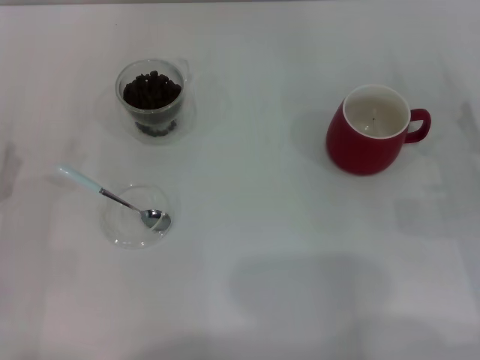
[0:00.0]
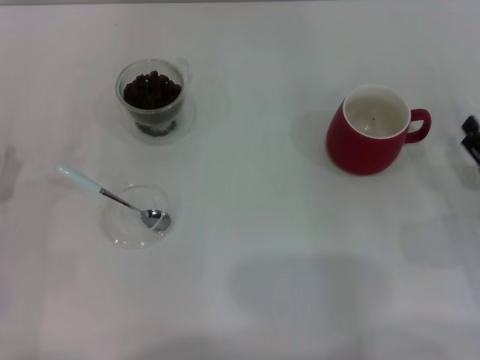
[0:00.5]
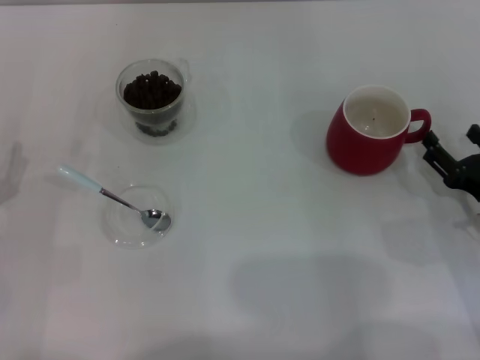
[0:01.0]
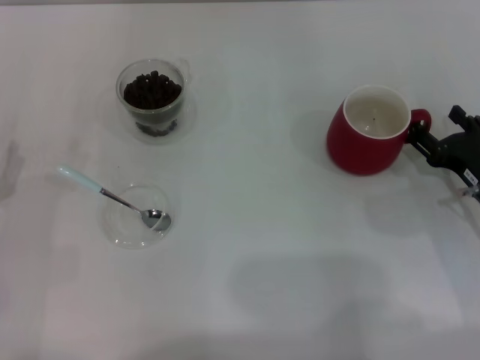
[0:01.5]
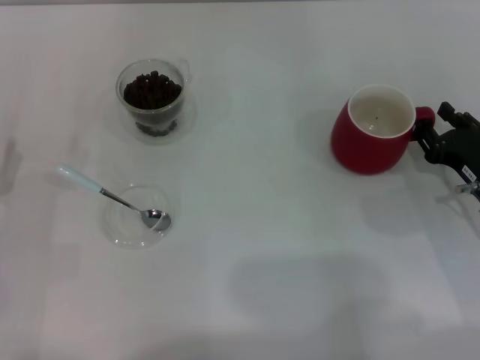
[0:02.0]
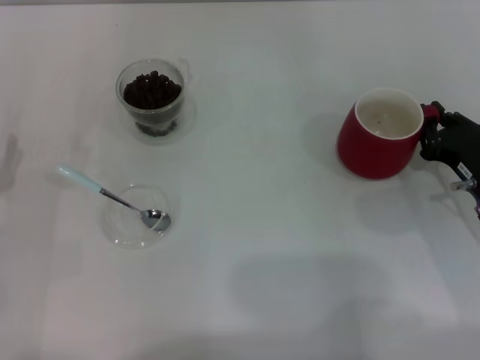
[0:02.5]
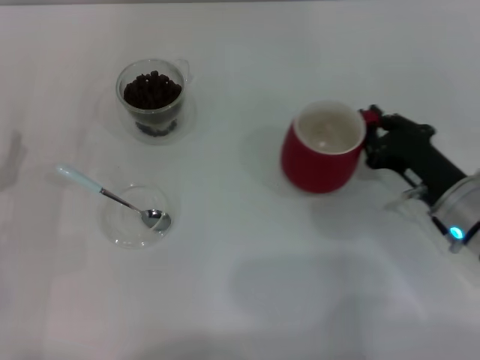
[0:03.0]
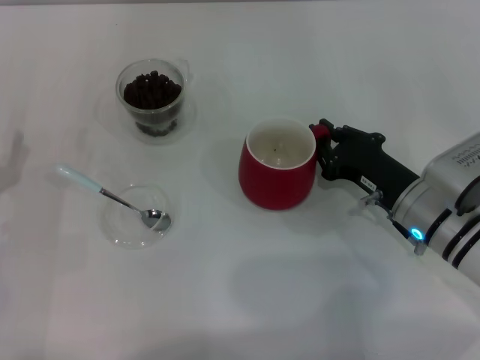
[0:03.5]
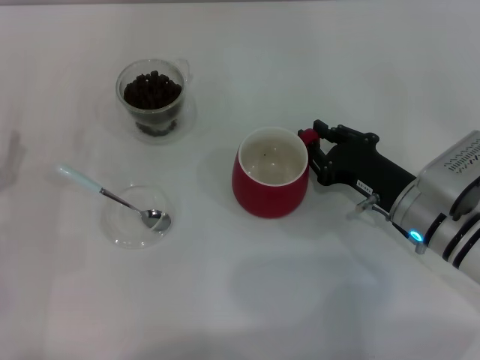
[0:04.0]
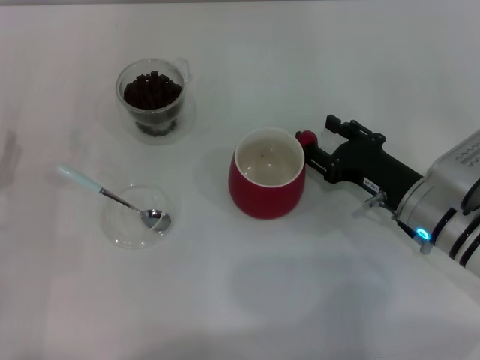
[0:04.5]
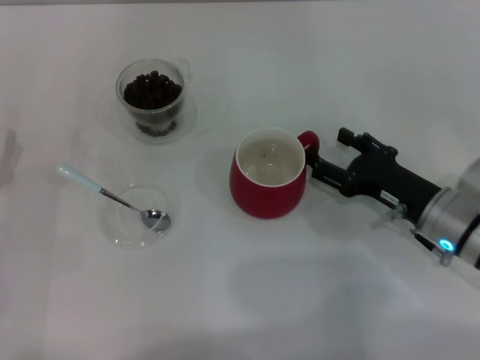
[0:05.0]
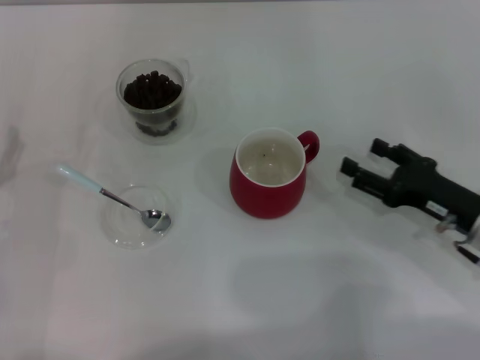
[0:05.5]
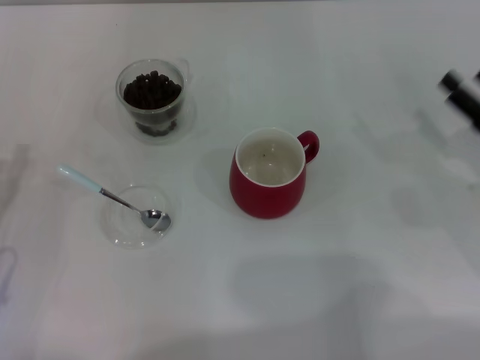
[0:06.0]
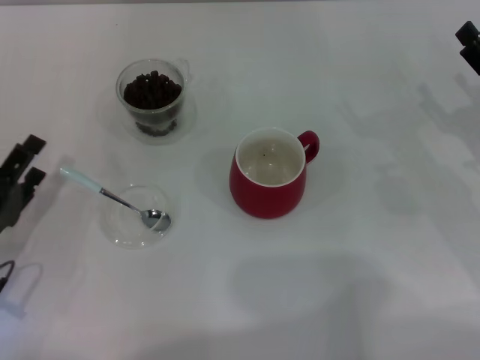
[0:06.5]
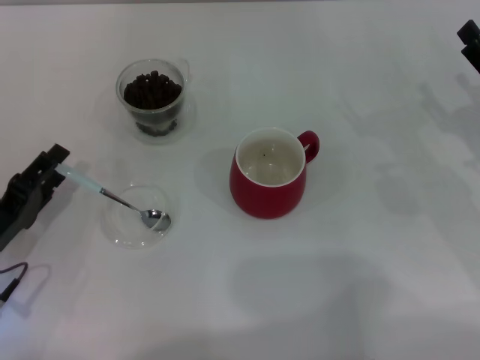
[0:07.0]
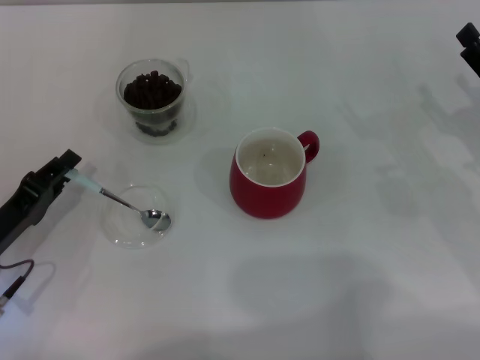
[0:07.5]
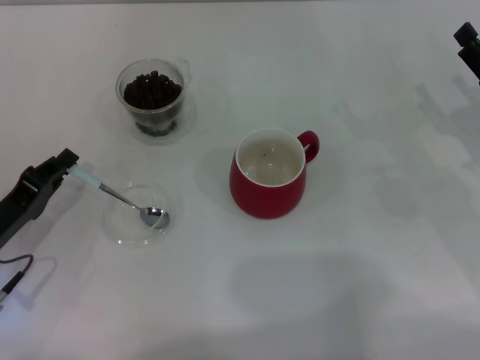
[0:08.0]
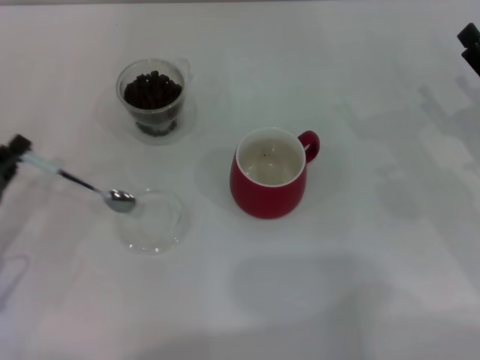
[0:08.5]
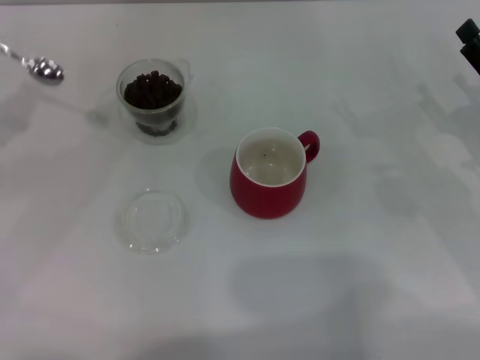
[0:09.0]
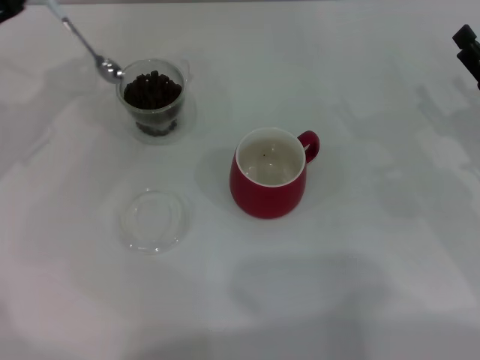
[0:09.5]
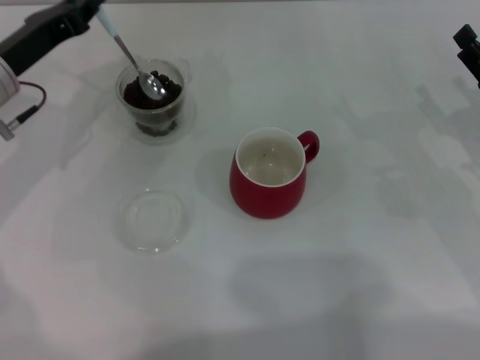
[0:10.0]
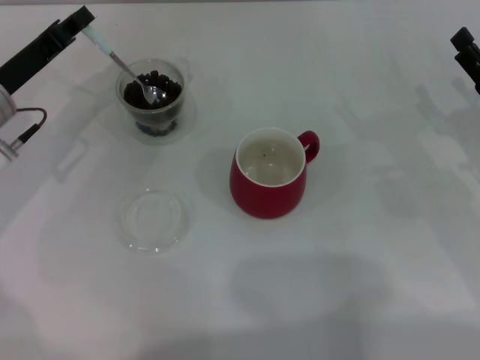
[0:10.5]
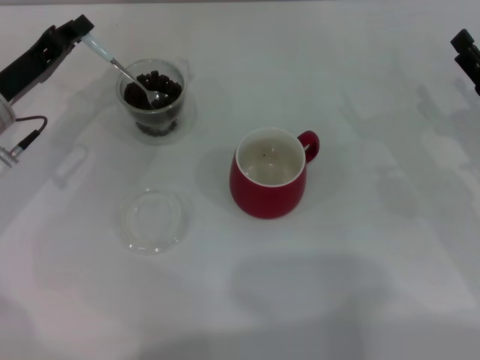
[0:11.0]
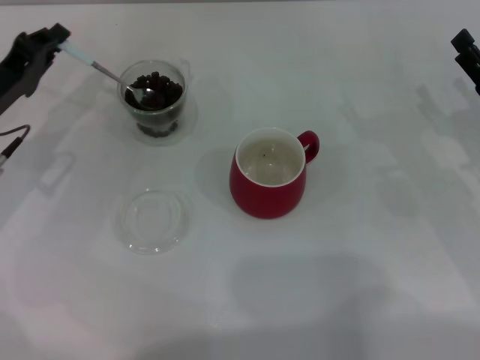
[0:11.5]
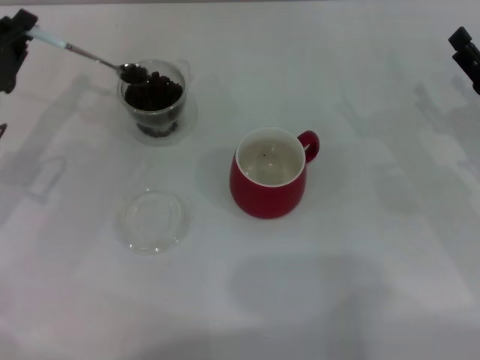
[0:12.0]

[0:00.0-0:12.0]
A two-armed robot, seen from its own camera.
Task of the whole recording: Use a blue spoon to take out the coffee beans from the glass and pour them into the red cup.
Step, 0:05.5 to 0:08.0: Pick up the spoon with the right gripper.
0:00.0 to 0:02.0: The grippers make only small movements.
0:02.0 to 0:04.0: The right gripper shifts some 10 cm to the left, and closes.
0:04.0 to 0:06.0: The right gripper goes roughly 15 cm to the right, and opens its fingers.
0:06.0 to 0:08.0: The left gripper closes.
0:08.0 to 0:10.0: The left gripper travels forward and upward by about 15 cm.
0:10.0 to 0:12.0: The left gripper is displaced backward by approximately 5 cm.

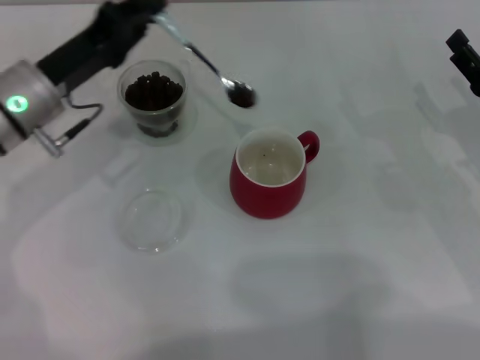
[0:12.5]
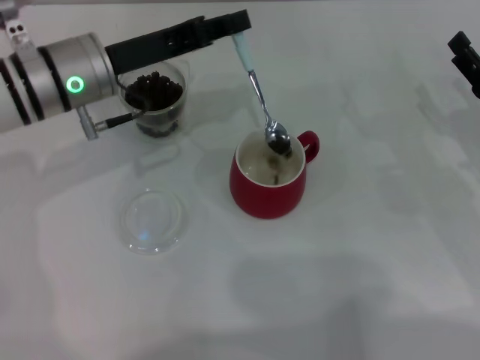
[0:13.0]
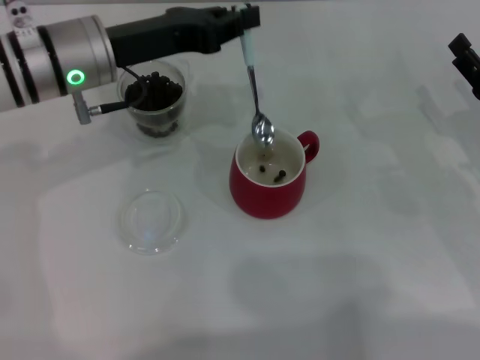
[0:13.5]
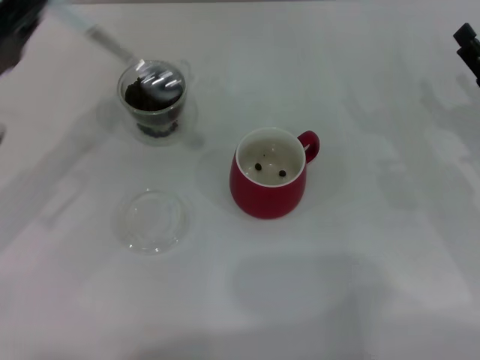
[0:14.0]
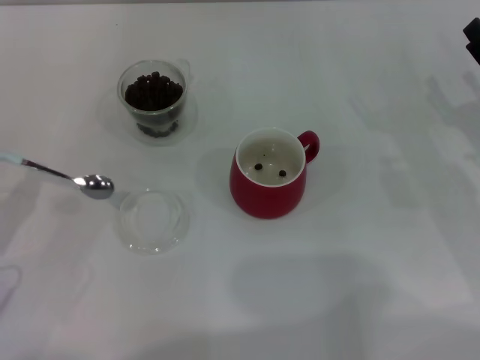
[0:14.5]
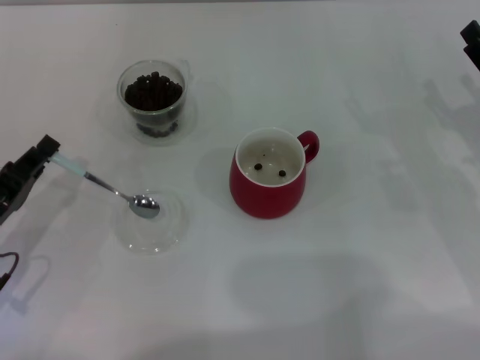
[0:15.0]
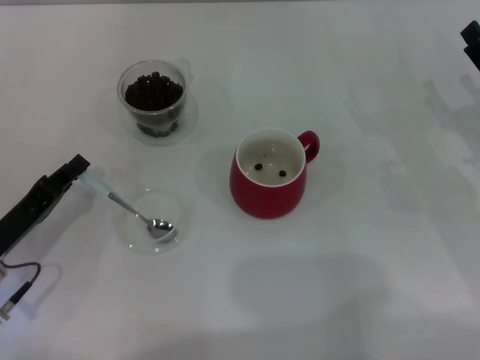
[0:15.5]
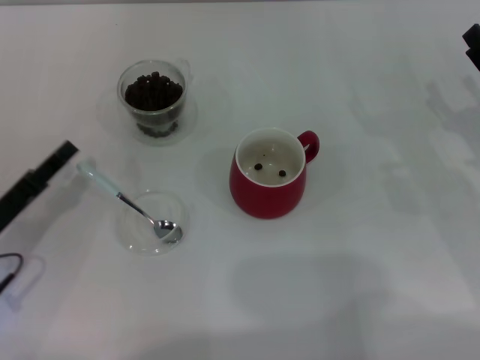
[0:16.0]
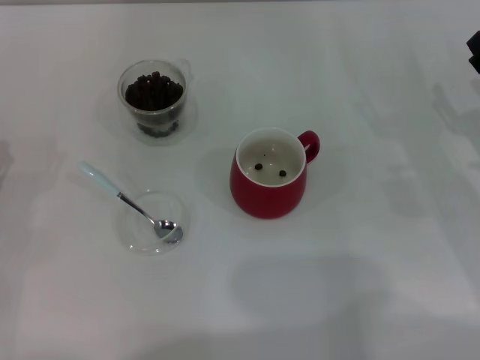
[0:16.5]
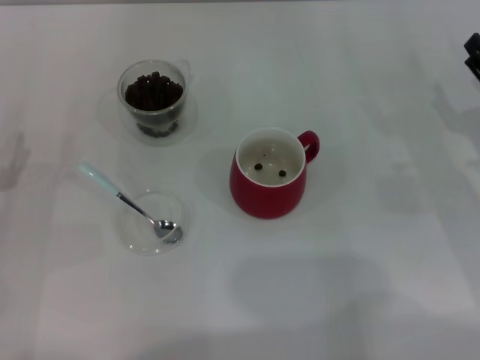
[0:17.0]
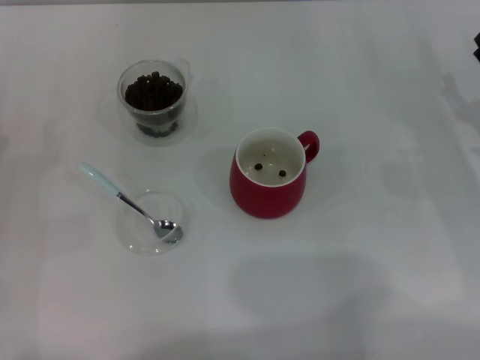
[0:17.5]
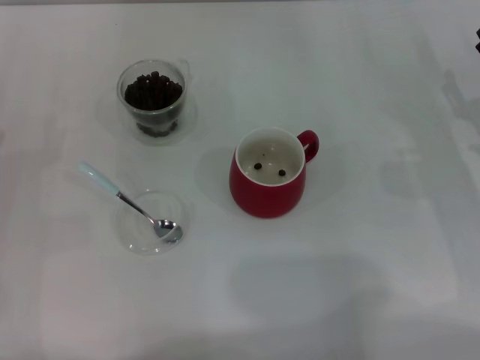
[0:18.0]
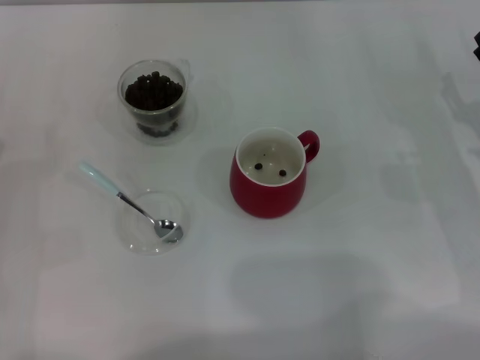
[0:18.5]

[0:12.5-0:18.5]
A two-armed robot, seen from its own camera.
Task of the whole recording: Use a blue spoon to take out the coffee beans from the glass and pour them into the red cup.
0:12.5 to 0:14.5: The left gripper heads backward and to the left, covering approximately 20 cm.
0:14.5 to 0:16.5: The left gripper moves roughly 5 cm, and opens.
